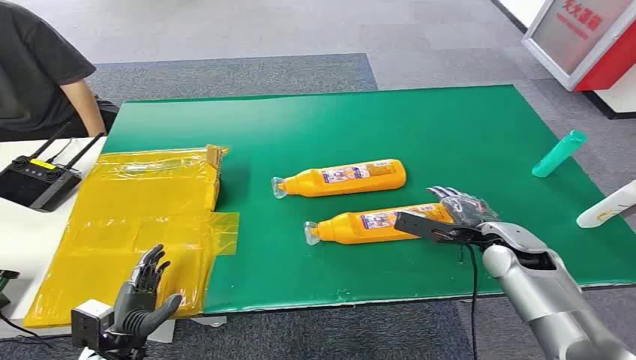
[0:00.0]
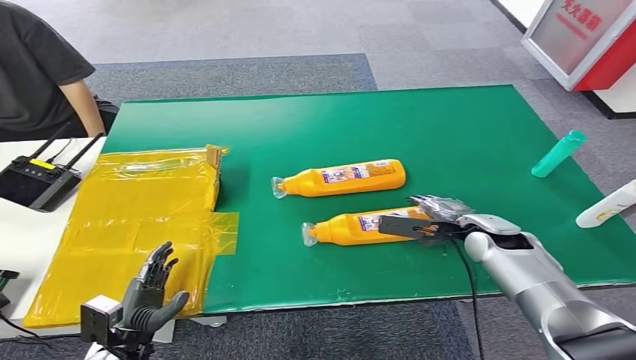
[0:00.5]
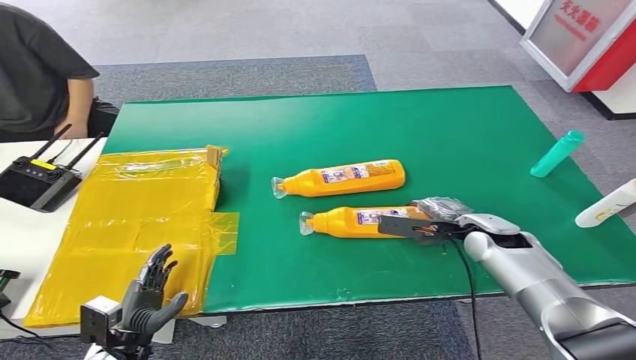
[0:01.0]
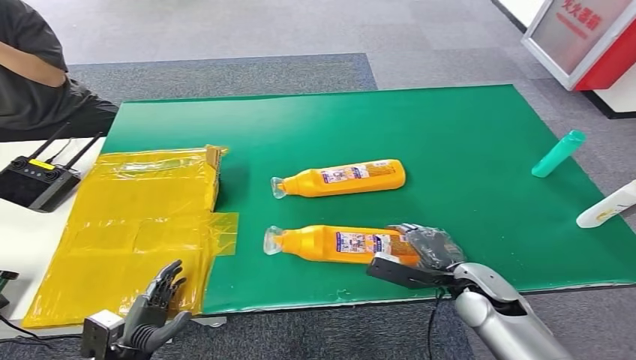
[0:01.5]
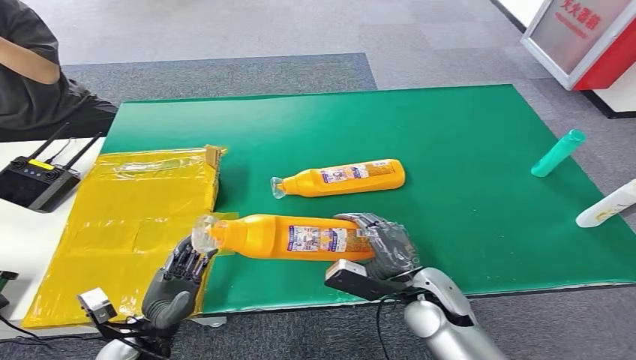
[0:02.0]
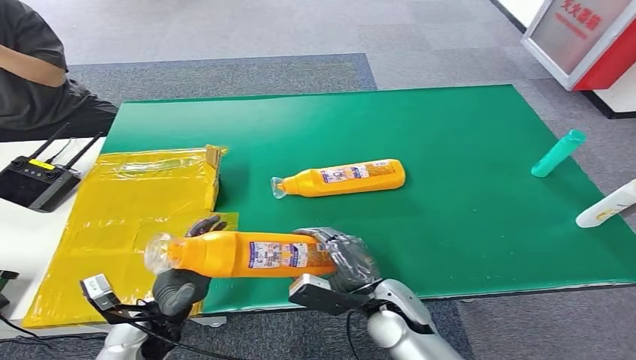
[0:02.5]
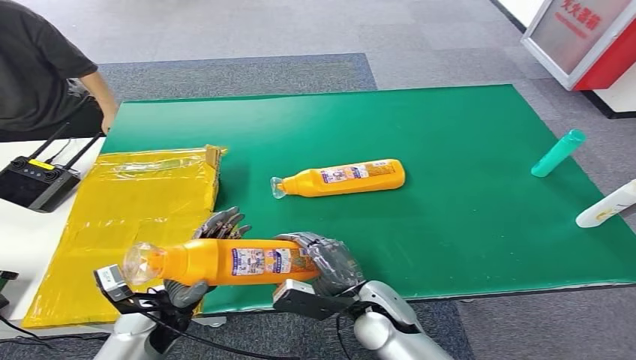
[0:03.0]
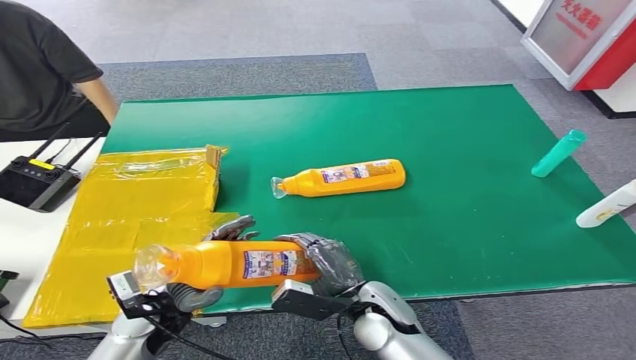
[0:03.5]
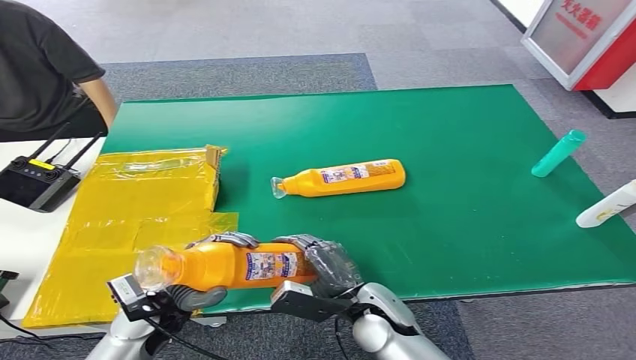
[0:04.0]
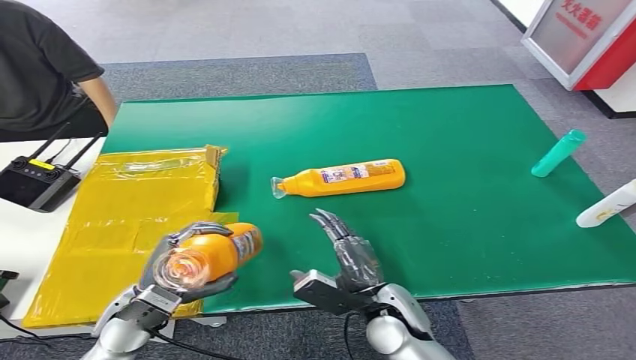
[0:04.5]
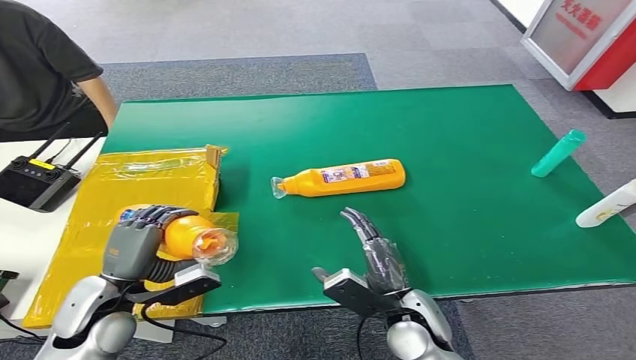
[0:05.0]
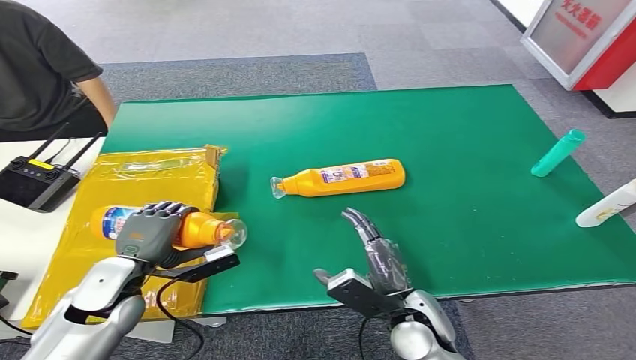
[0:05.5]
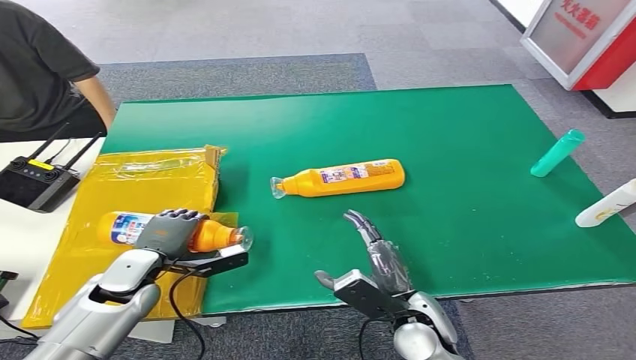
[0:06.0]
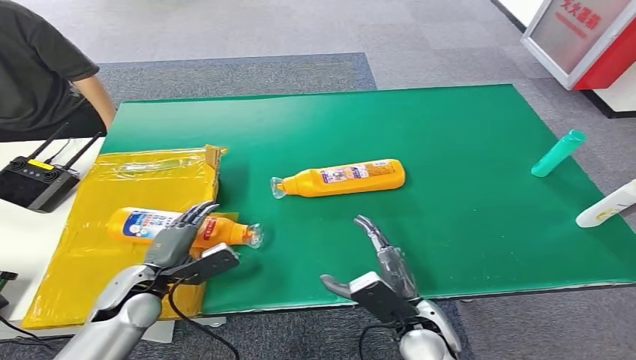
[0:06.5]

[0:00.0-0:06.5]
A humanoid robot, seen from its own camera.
Step, 0:00.0 to 0:02.0: Pick up the bottle from the table.
Step, 0:04.5 to 0:06.5: Turn the bottle to the front side.
0:02.0 to 0:04.5: The right hand moves to the left, about 5 cm; the left hand moves upward, about 10 cm.
0:04.5 to 0:06.5: The left hand moves approximately 5 cm.
